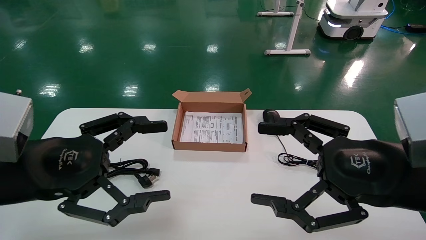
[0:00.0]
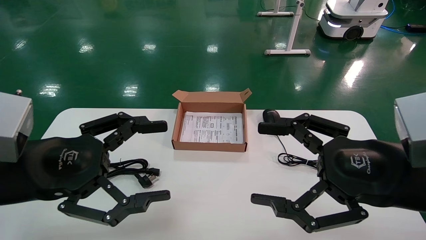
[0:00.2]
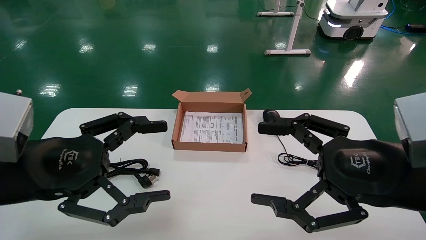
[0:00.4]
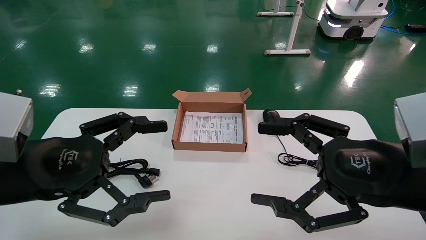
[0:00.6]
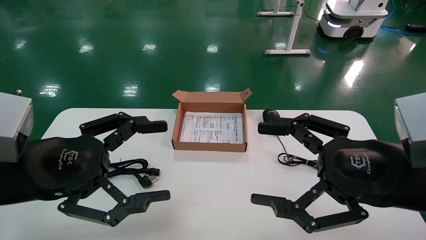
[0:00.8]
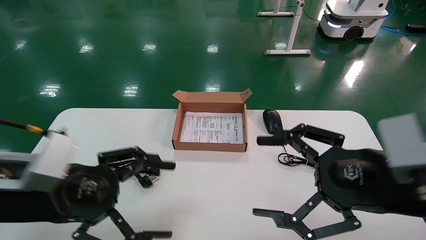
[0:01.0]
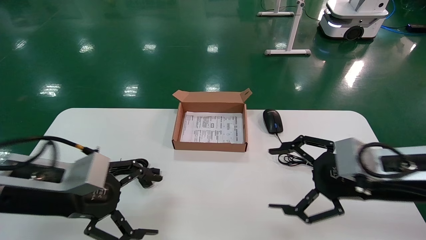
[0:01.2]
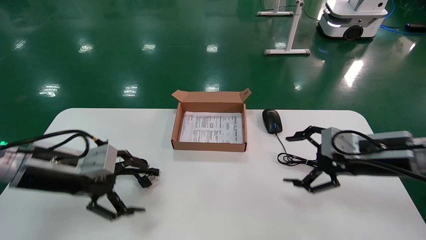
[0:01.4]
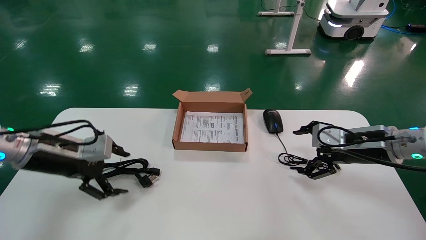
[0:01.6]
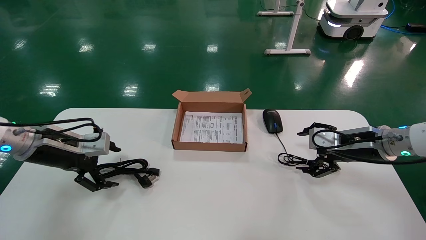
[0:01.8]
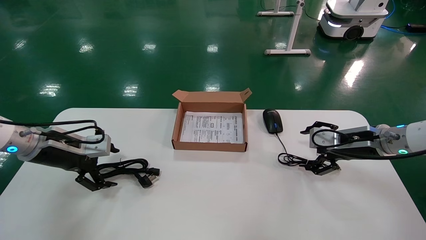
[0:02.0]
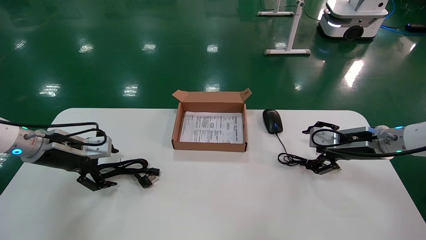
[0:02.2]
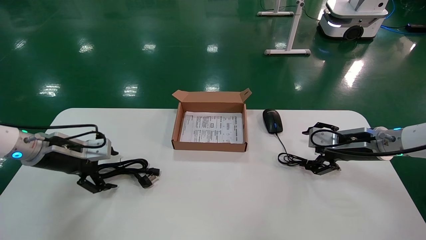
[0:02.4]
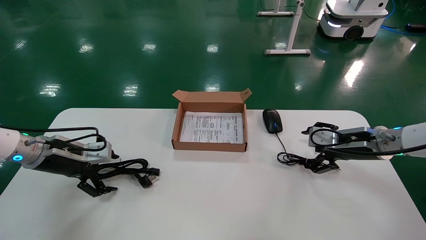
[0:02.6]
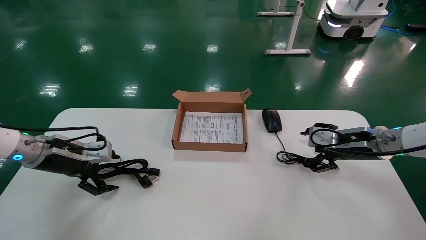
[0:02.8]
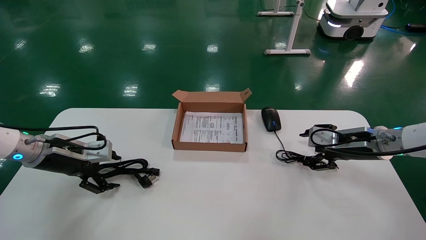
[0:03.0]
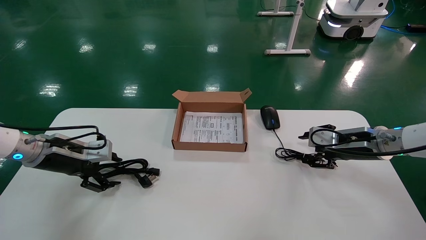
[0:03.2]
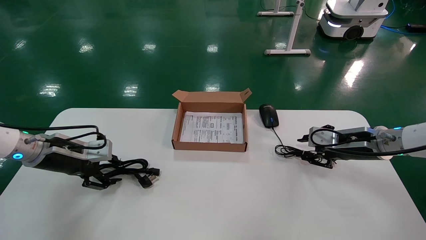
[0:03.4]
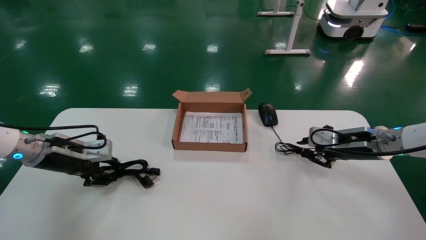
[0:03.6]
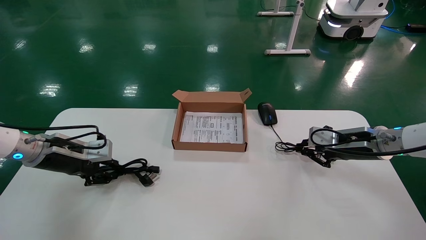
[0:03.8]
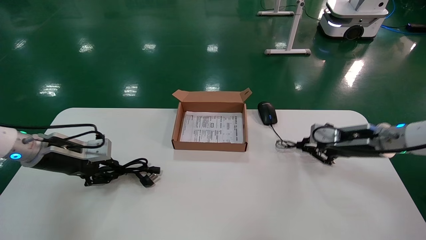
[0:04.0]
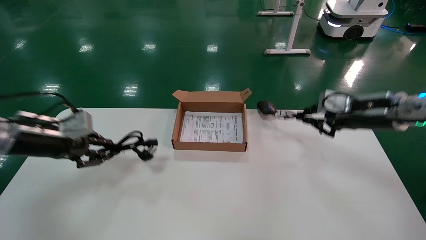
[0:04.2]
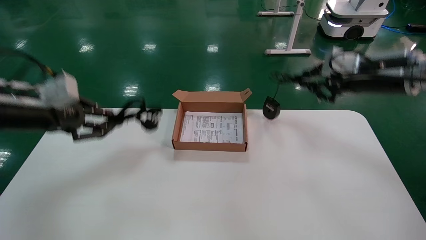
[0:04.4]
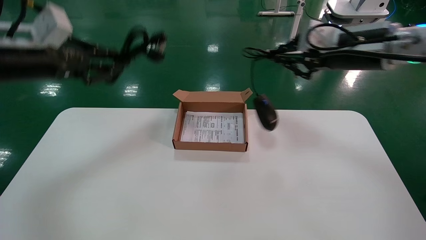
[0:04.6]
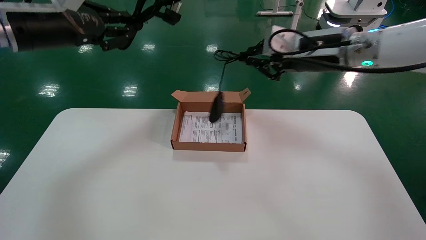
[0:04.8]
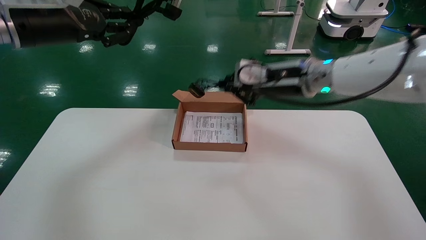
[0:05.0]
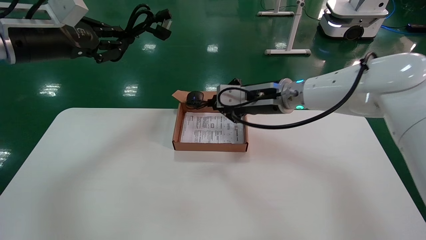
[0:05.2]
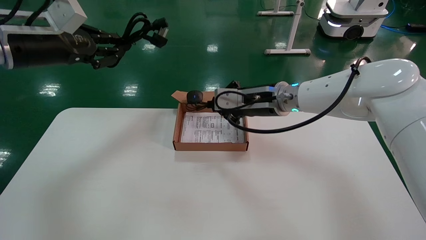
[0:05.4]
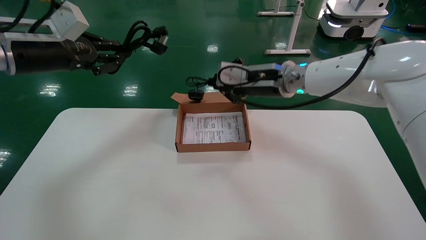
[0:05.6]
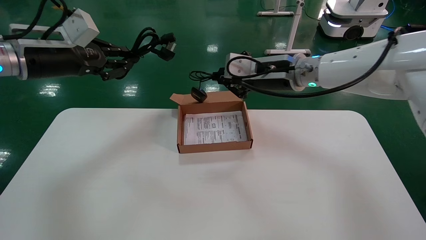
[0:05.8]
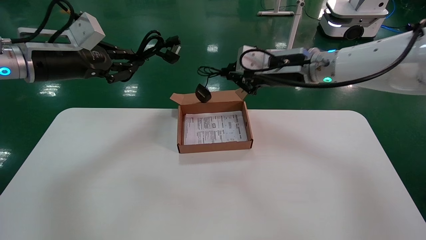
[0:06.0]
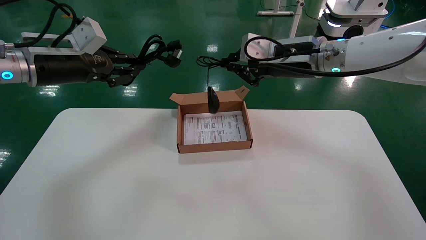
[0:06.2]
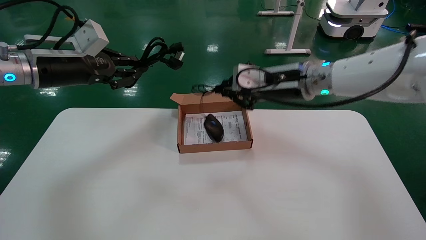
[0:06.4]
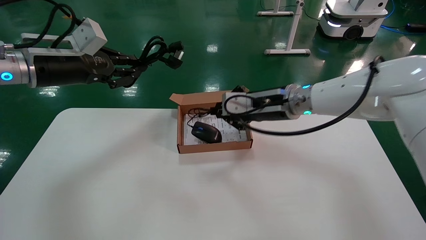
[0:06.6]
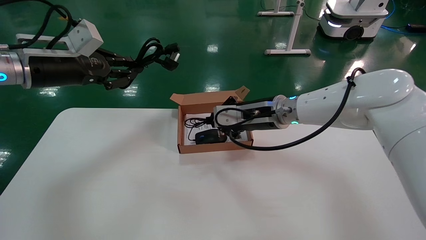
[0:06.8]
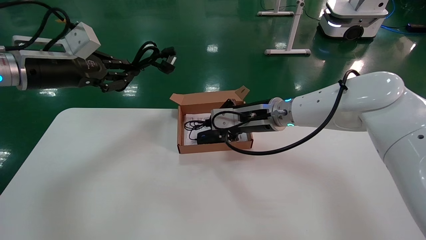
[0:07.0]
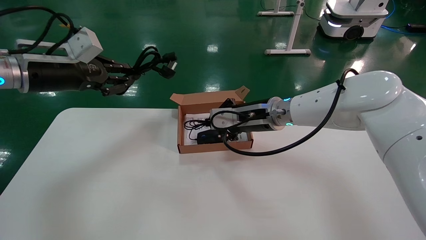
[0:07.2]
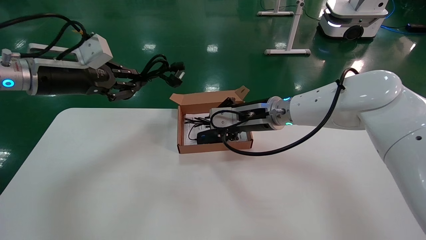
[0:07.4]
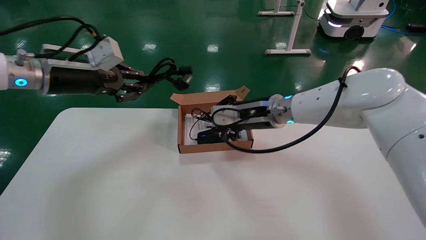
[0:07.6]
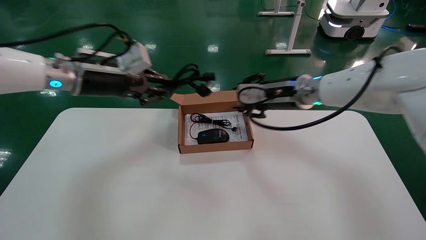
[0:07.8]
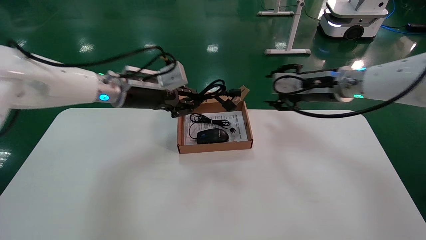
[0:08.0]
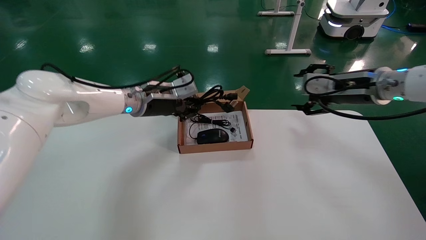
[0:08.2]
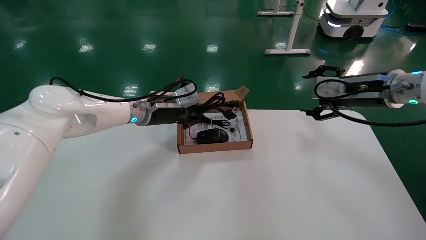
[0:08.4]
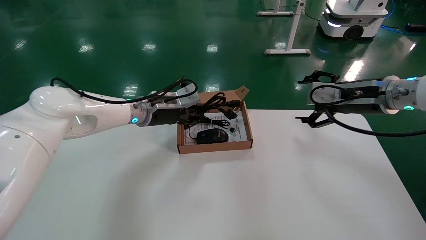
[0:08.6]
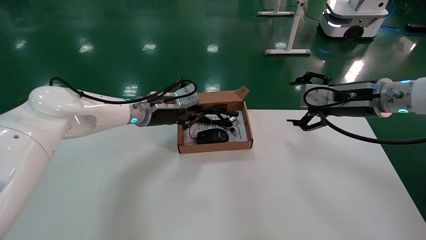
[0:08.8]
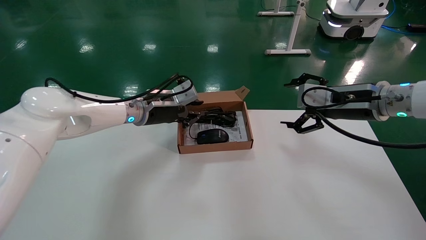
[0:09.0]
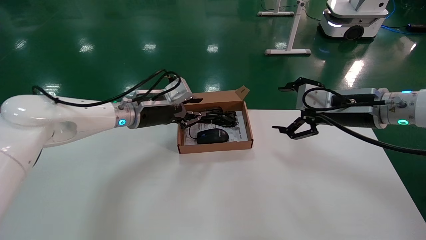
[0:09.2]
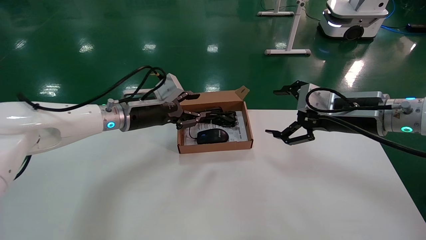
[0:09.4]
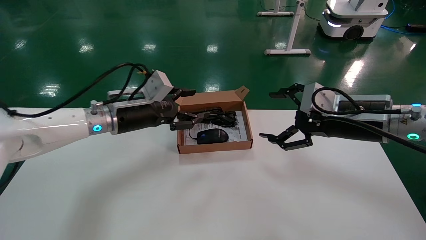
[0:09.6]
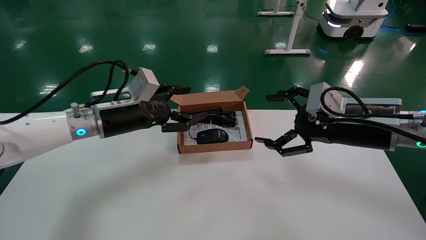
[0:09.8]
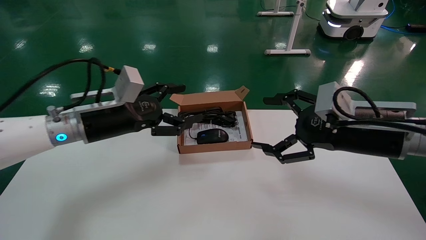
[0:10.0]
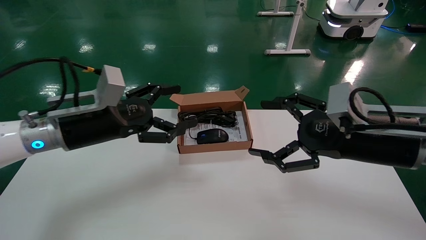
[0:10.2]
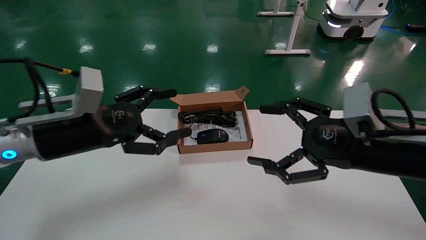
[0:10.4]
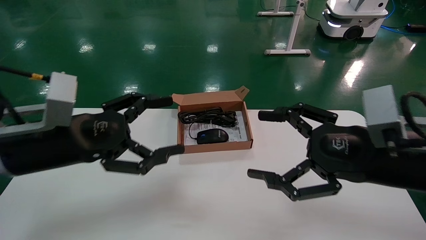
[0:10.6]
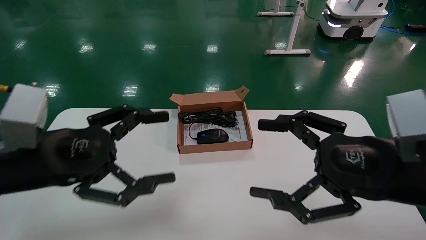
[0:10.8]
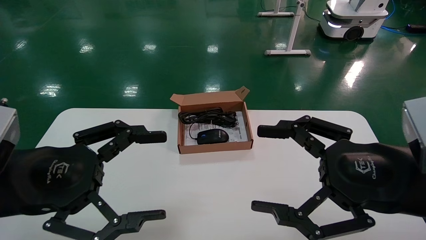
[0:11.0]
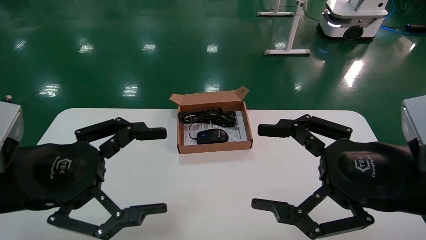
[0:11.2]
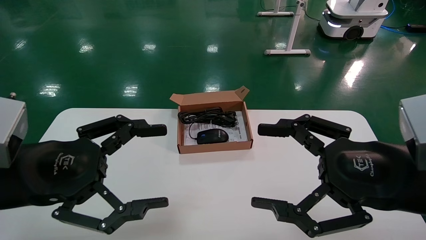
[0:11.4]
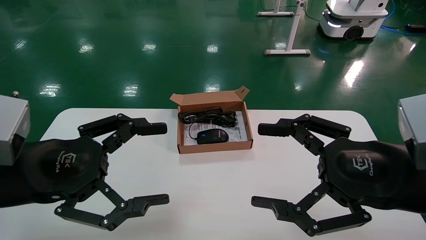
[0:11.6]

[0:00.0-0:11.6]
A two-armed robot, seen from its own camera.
Step, 0:01.2 to 0:04.0: Grab and lift both the mouse and power cord from the accessory packaging area at the same time.
Step, 0:04.2 to 0:09.2: Place the mouse and power cord into the box.
0:00.0 to 0:01.4: Both grippers travel together forward, some 10 cm.
0:01.4 to 0:02.8: The right gripper is displaced forward by approximately 10 cm. Meanwhile the left gripper goes some 10 cm forward and to the left.
0:02.8 to 0:04.4: Both grippers travel together upward, roughly 15 cm. The left gripper closes up; the right gripper closes up.
0:04.4 to 0:05.8: The left gripper goes about 5 cm upward, while the right gripper goes some 15 cm to the left.
0:05.8 to 0:07.2: The right gripper goes approximately 10 cm downward.
0:07.2 to 0:08.8: The left gripper moves to the right, downward and forward, about 20 cm, while the right gripper is displaced to the right by about 20 cm, and opens up.
0:08.8 to 0:10.2: The left gripper travels backward and to the left by some 15 cm, and opens. The right gripper heads backward, covering approximately 15 cm.
0:10.2 to 0:11.6: The right gripper heads backward, covering roughly 10 cm; the left gripper travels backward by roughly 15 cm.

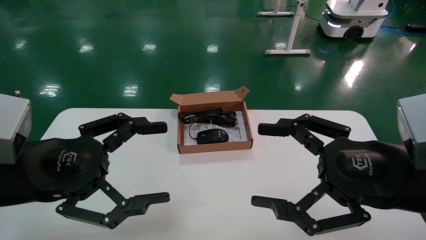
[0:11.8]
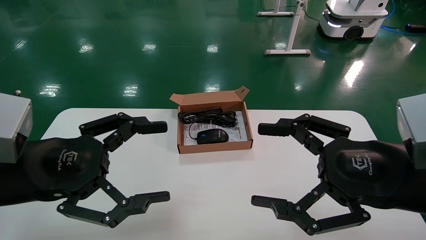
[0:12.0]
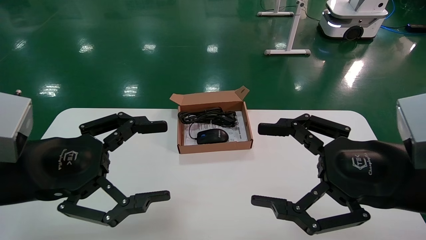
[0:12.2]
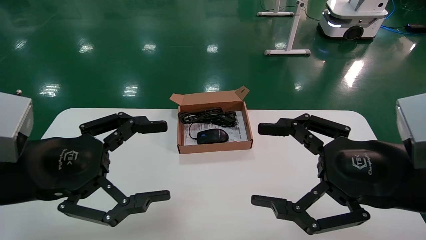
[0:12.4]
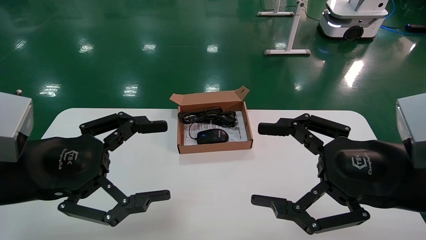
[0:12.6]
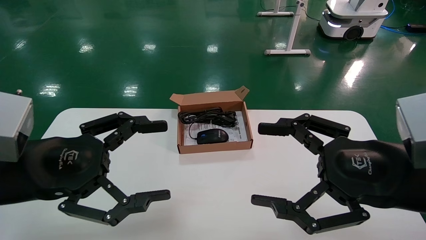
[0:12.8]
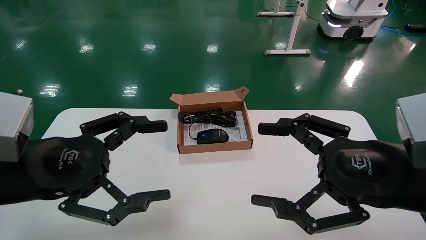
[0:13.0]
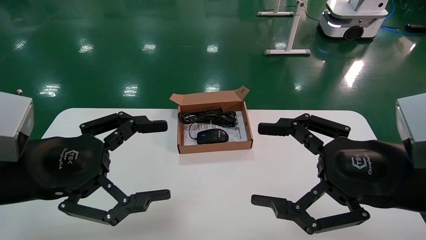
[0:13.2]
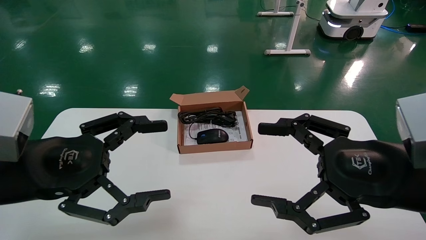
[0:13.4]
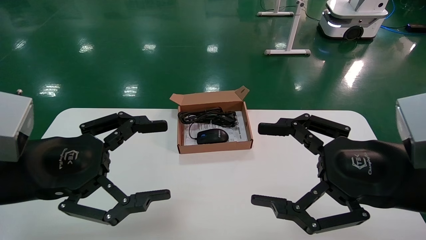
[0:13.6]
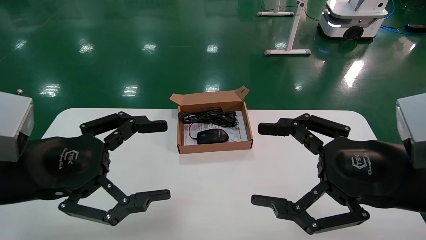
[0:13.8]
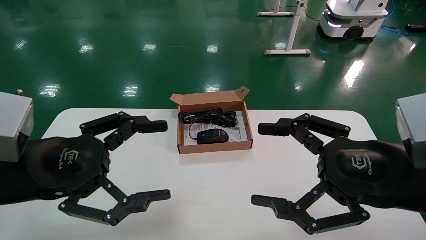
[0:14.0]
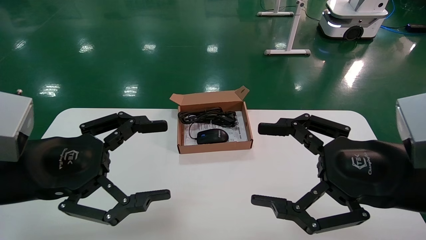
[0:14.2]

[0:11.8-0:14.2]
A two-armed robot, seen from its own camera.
0:11.8 to 0:14.2: The two grippers keep their place.
